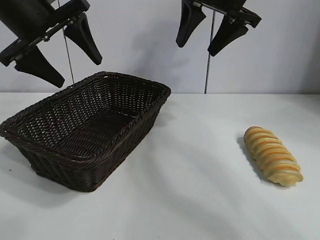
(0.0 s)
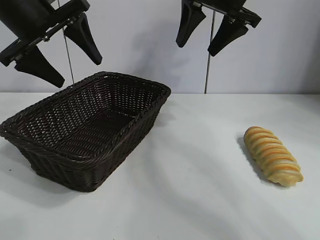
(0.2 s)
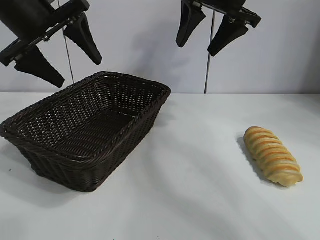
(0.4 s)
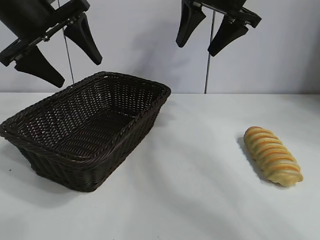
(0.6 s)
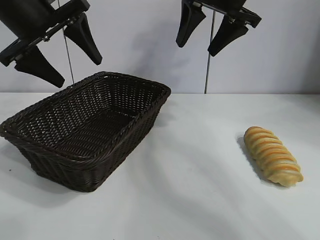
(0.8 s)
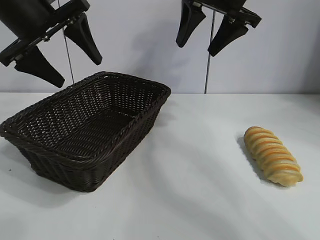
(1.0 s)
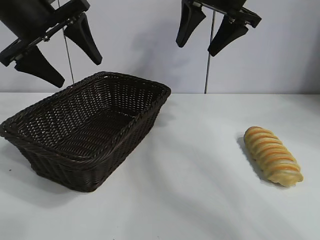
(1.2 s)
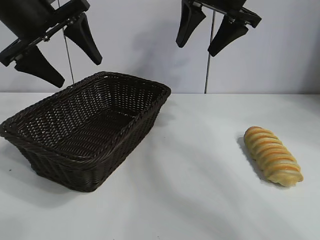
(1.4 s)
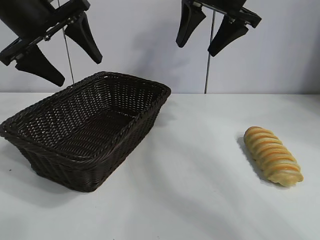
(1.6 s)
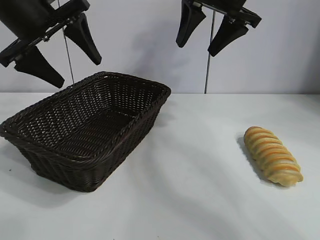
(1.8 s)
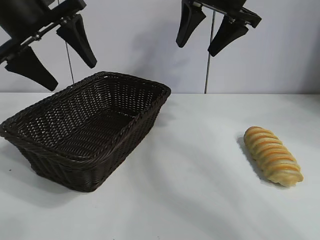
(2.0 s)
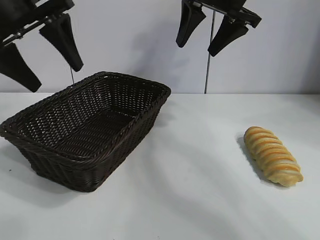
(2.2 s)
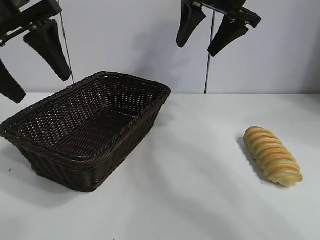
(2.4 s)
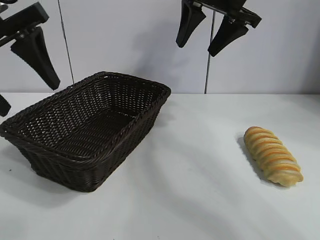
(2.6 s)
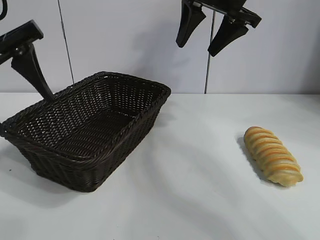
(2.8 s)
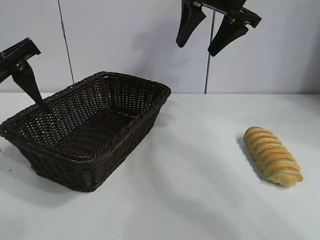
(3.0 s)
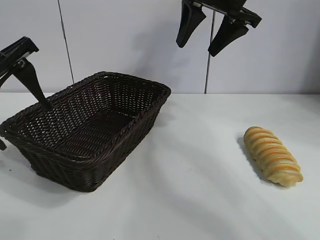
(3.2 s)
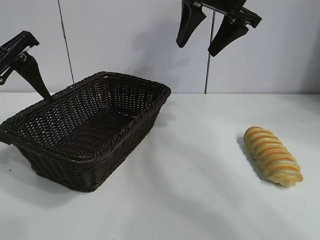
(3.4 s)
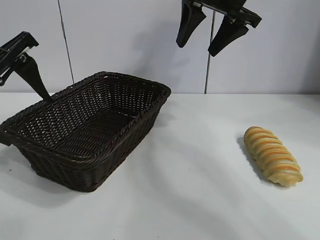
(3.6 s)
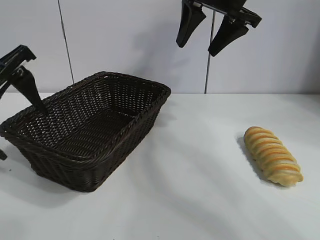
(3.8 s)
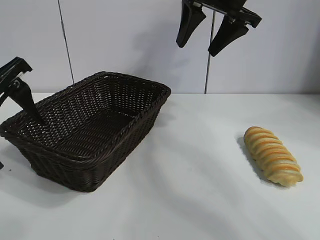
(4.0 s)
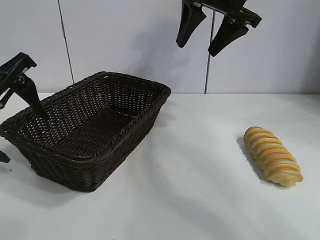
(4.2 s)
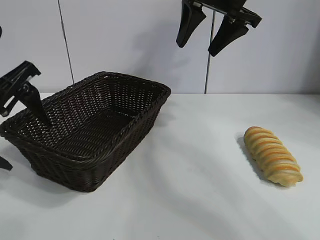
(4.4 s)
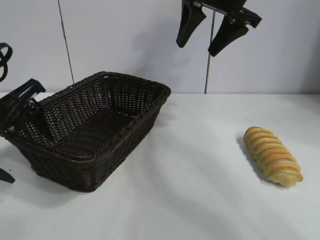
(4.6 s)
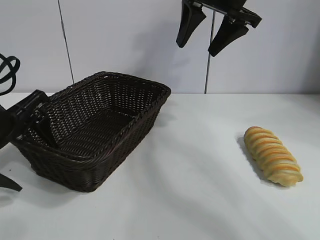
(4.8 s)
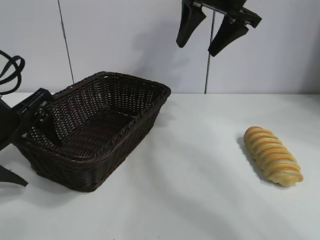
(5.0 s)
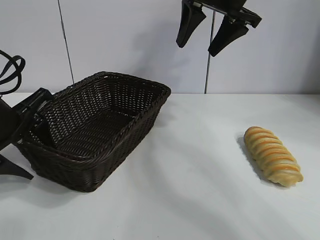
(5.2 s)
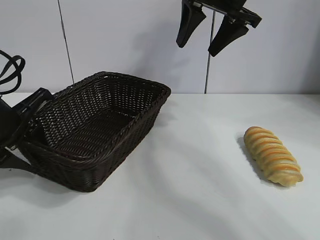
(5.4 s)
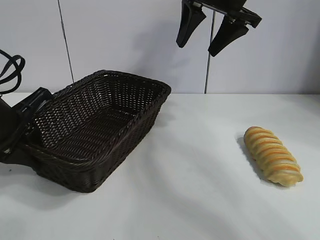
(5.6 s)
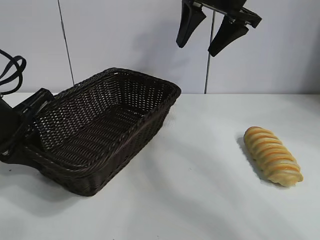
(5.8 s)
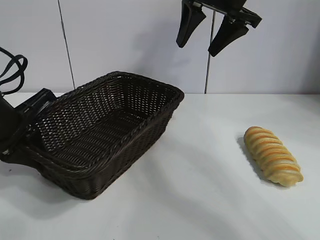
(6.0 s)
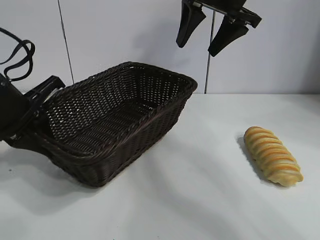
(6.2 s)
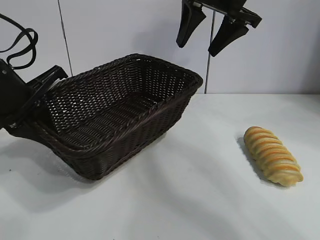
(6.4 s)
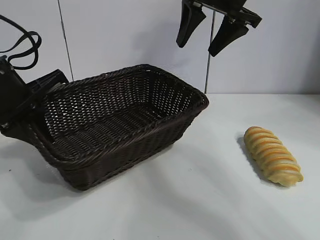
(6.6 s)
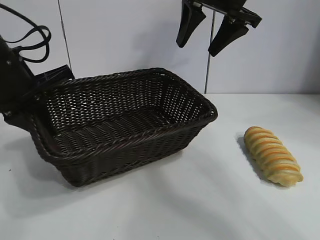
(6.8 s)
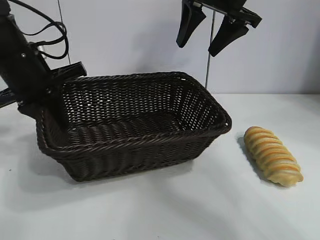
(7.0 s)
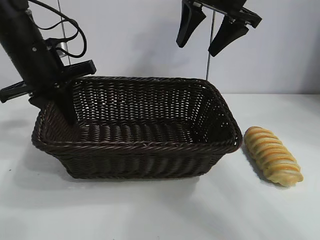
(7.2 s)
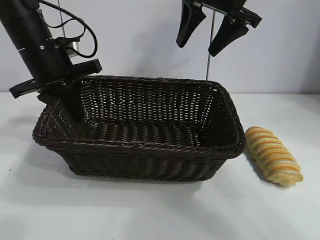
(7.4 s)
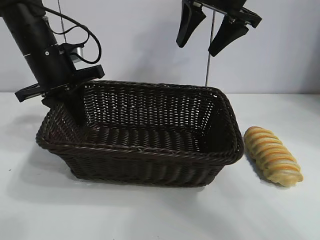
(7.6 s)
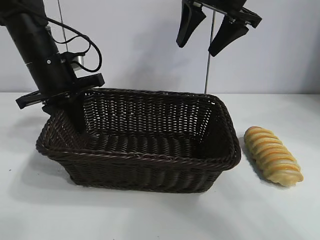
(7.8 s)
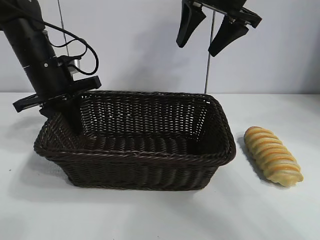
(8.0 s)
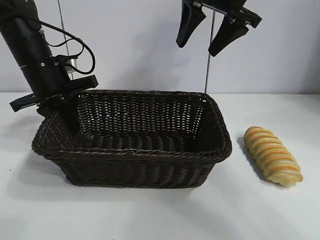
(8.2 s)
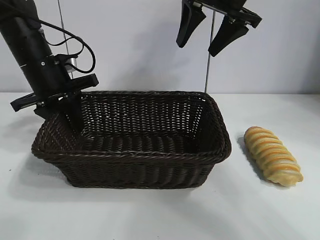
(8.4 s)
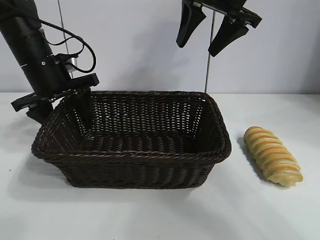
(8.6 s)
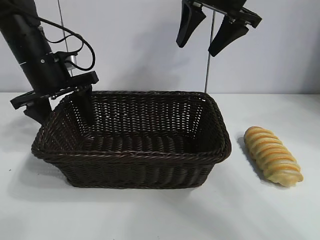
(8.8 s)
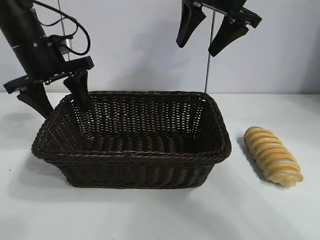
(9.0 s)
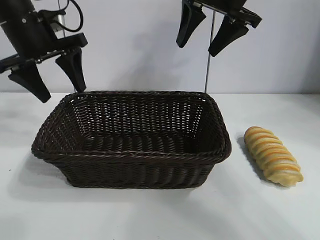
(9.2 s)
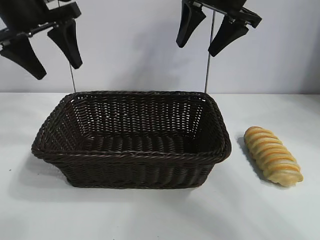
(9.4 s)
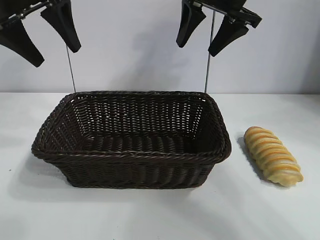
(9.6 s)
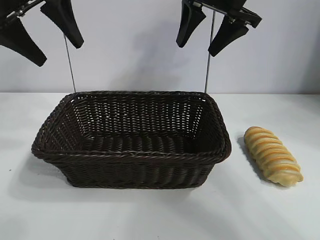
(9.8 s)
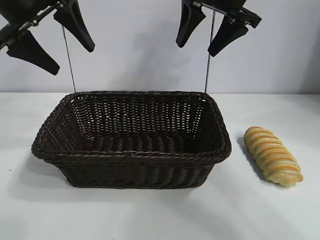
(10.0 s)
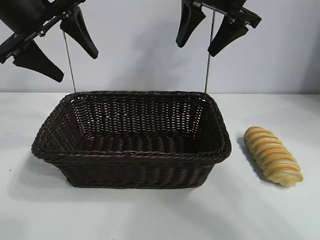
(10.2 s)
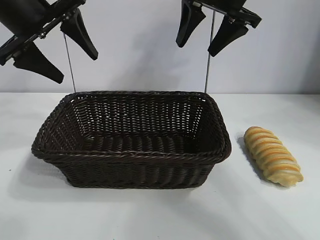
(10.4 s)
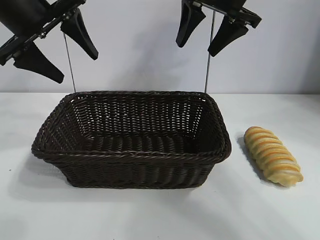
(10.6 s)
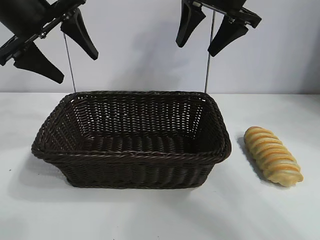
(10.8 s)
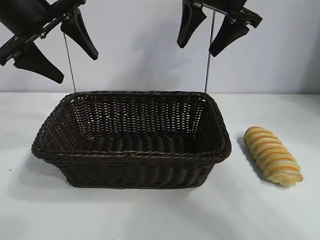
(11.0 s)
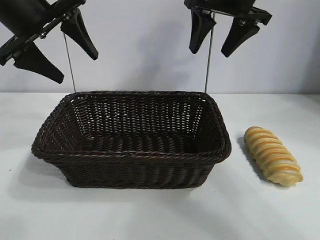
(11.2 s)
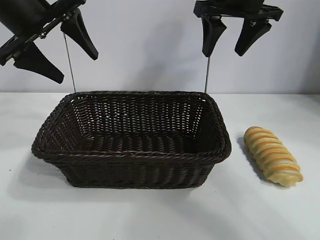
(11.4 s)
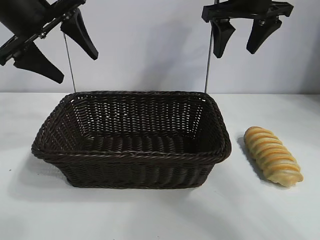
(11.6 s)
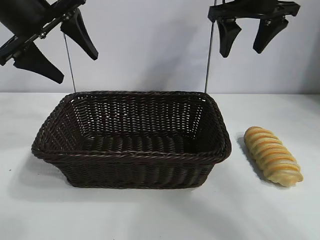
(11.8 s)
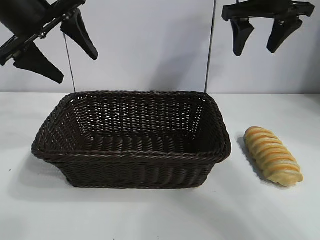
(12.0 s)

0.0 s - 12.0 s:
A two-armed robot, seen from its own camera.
Task of the whole recording: pick up the long bread and put it into the basket.
Step, 1.8 s - 5.8 s: Grasp the basket with the left gripper.
Step, 6.0 s - 8.6 s: Place the basket in the center of the table with the left gripper.

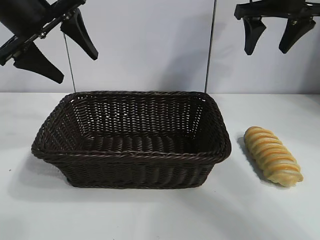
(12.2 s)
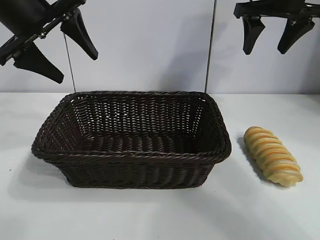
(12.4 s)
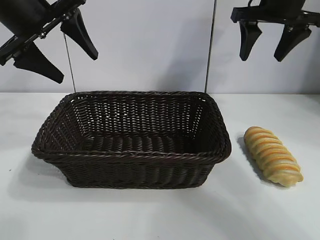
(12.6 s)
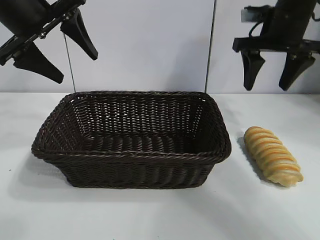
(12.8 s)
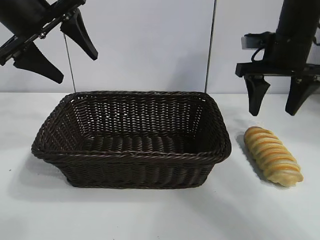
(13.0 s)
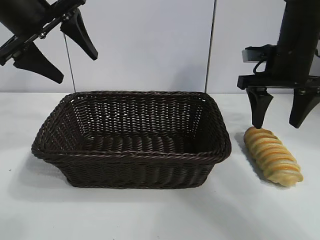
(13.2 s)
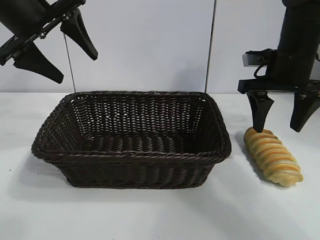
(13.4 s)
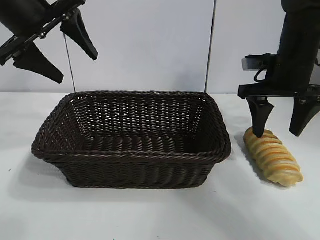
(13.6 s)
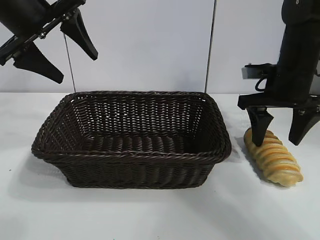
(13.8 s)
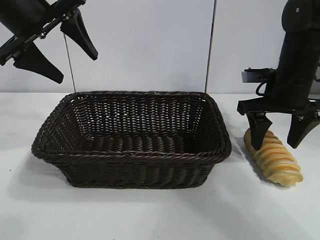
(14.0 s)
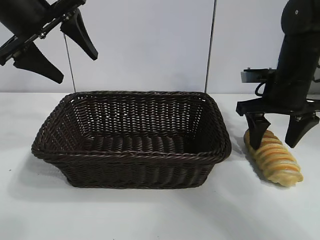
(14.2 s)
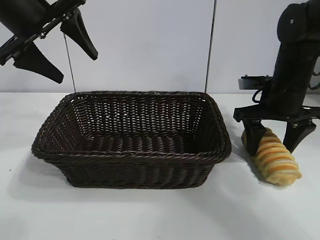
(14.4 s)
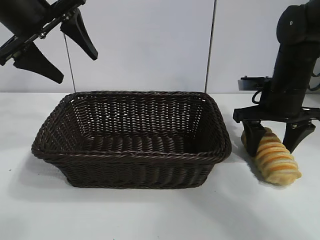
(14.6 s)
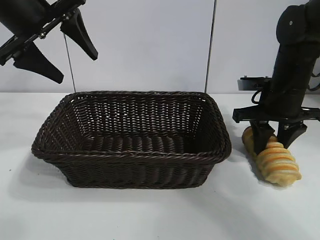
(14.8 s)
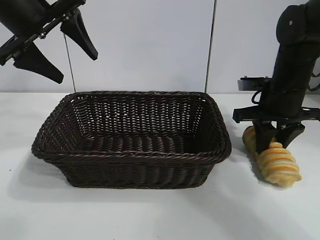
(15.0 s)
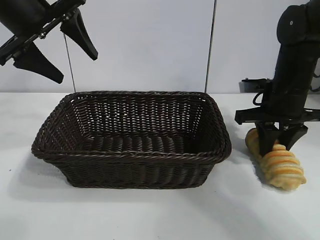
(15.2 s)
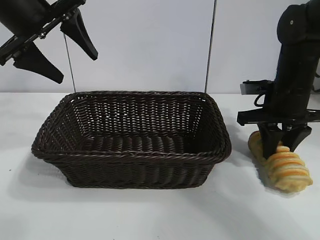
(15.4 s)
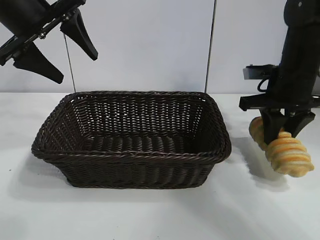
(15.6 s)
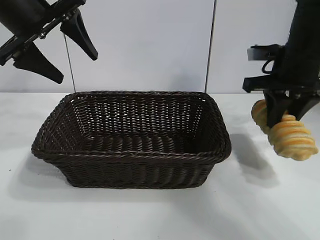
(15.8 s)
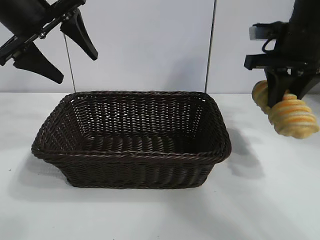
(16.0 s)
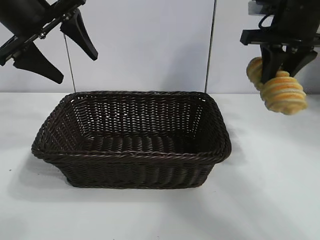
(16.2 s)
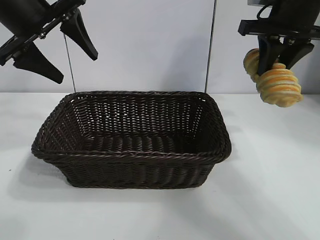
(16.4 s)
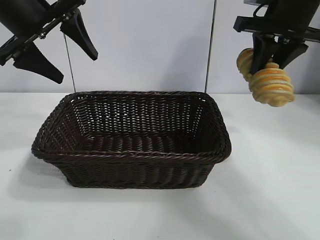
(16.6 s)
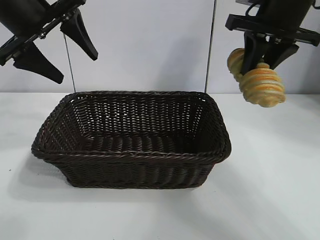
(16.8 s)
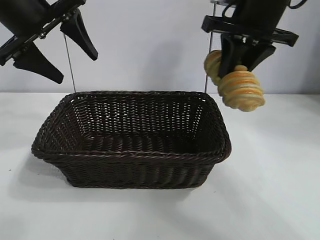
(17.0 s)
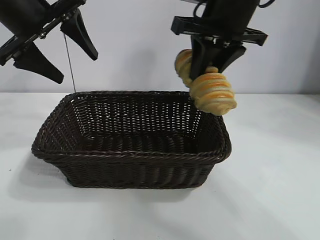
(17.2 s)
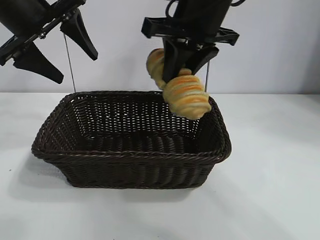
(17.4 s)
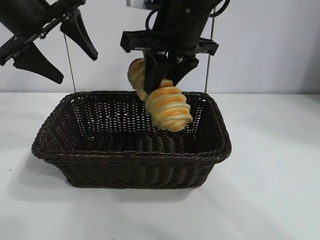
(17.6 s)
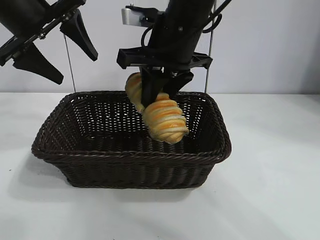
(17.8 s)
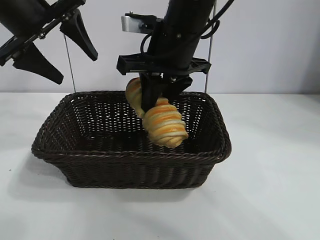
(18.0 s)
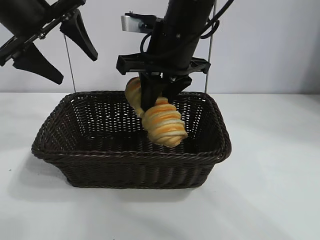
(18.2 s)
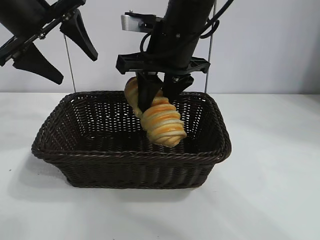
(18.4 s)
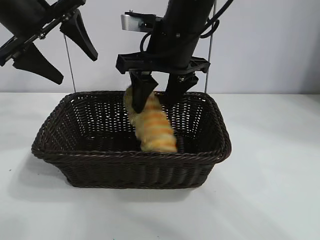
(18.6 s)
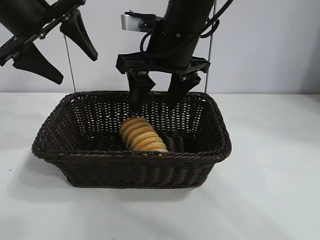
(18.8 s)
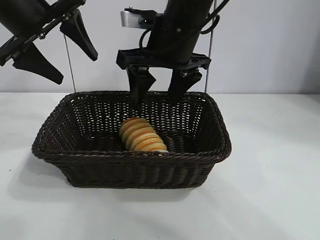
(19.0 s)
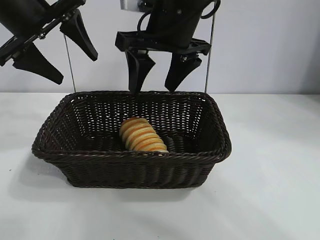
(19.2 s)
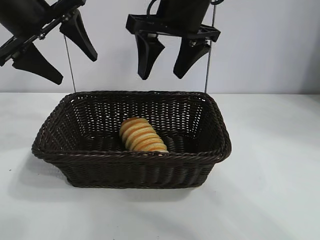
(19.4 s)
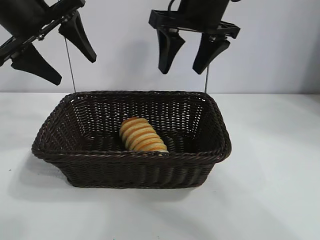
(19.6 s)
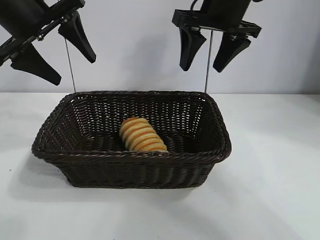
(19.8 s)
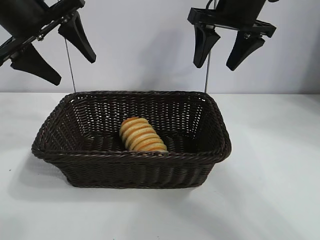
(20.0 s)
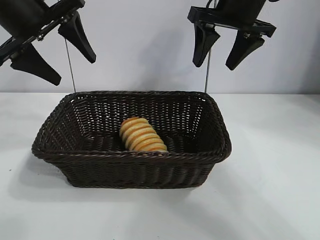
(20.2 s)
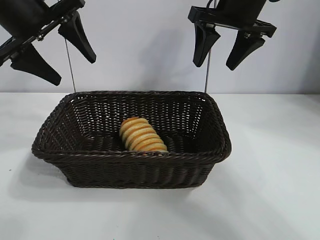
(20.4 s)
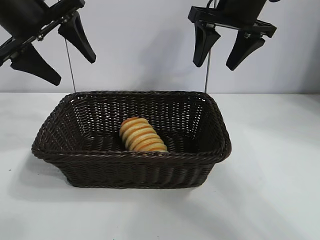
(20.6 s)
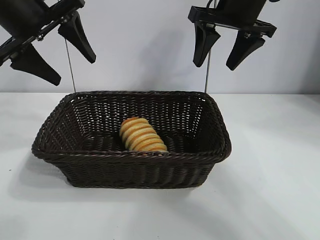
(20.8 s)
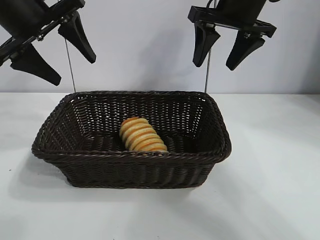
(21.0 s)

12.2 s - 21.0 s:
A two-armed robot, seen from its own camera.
Task of the whole recording: pick up the long bread and put it into the basket.
Step, 12.2 s - 15.0 s: Grasp the long bread with right gripper.
Step, 15.2 s - 19.2 s: Place the long bread in the basket with right gripper.
